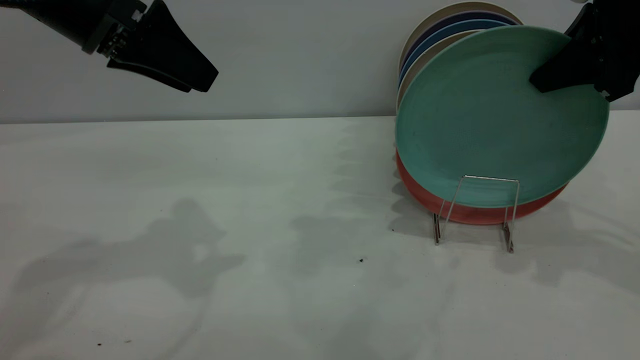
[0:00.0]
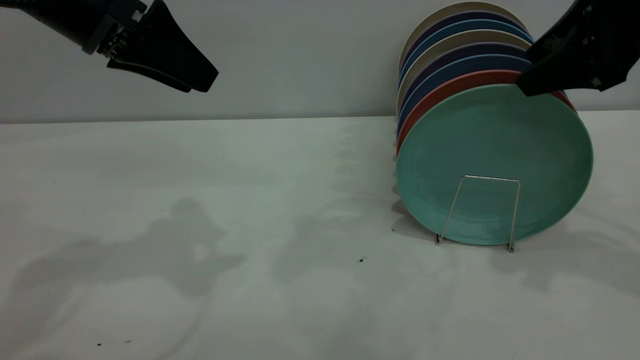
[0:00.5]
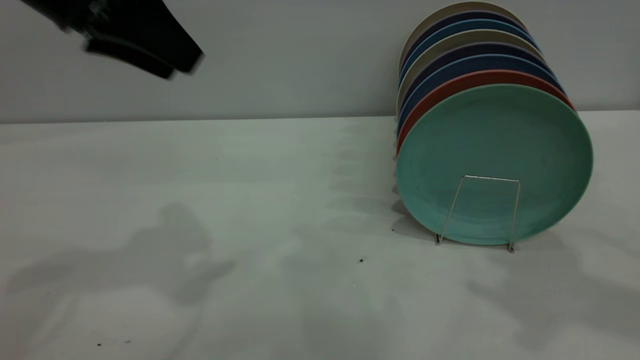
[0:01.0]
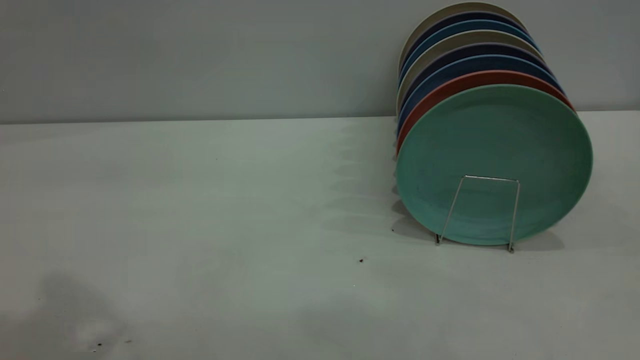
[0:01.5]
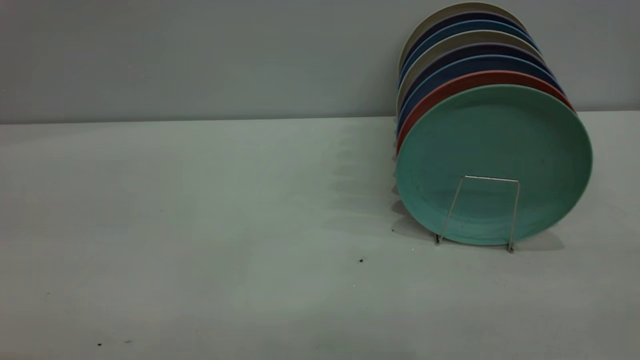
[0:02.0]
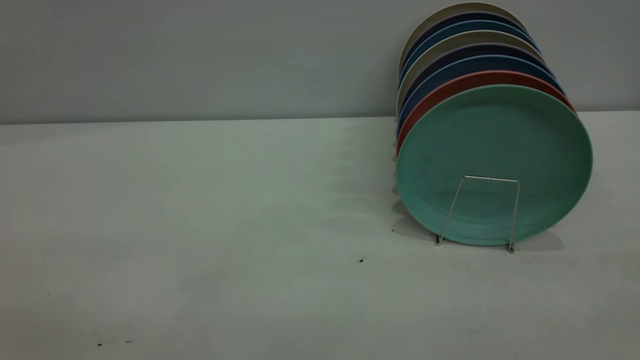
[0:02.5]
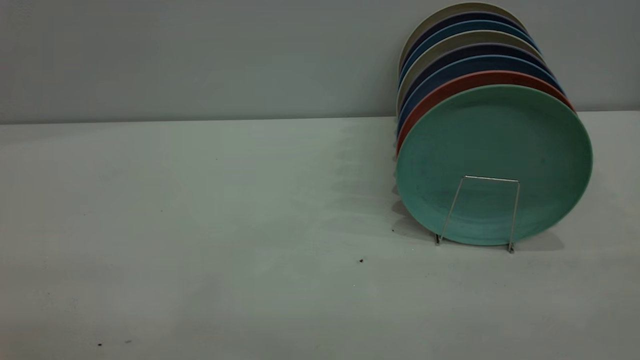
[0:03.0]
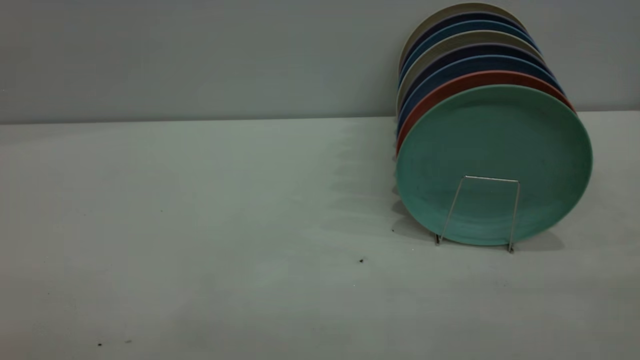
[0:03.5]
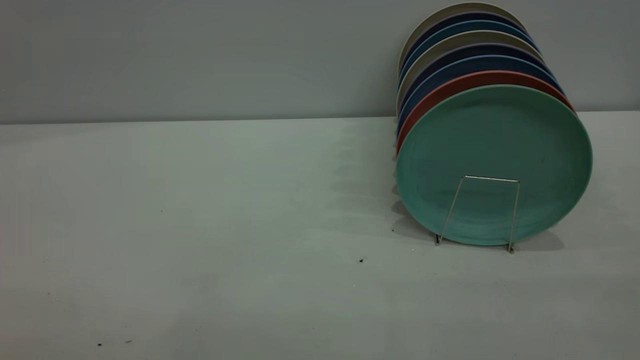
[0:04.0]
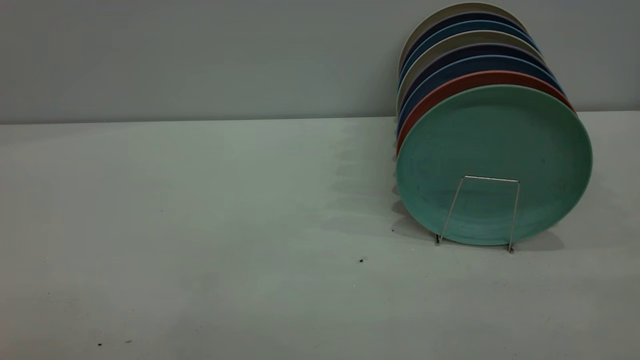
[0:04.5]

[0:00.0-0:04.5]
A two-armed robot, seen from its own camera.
Task of the whole recording: the left gripper grasp the green plate, the left gripper pass the green plate to the right gripper, and the right gripper place the green plate on the plate rack.
0:00.0 to 0:02.0: The left gripper heads backward and upward, covering approximately 25 cm; the right gripper shifts approximately 35 cm backward, and opens up.
